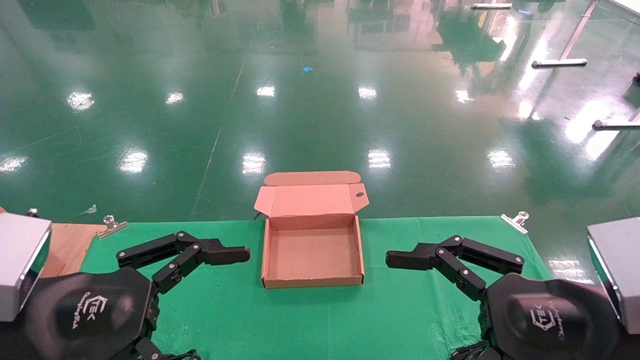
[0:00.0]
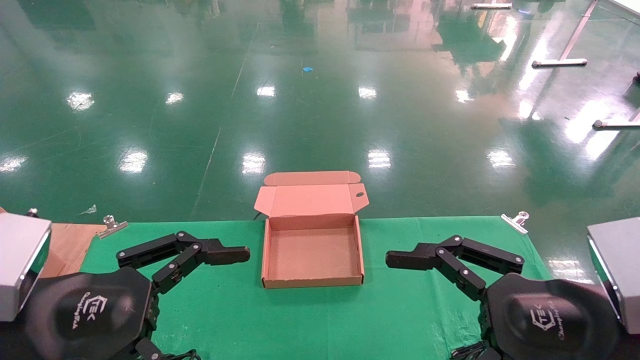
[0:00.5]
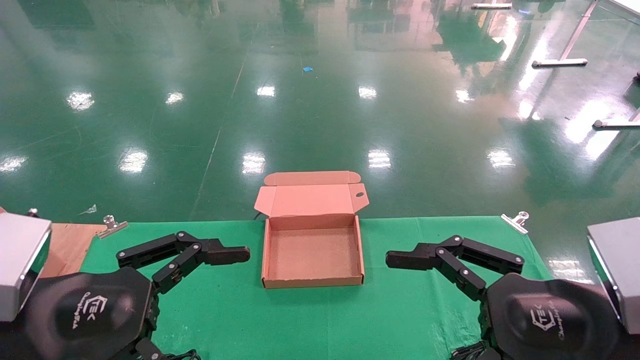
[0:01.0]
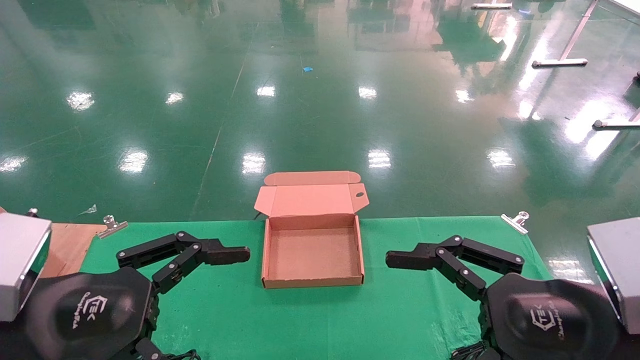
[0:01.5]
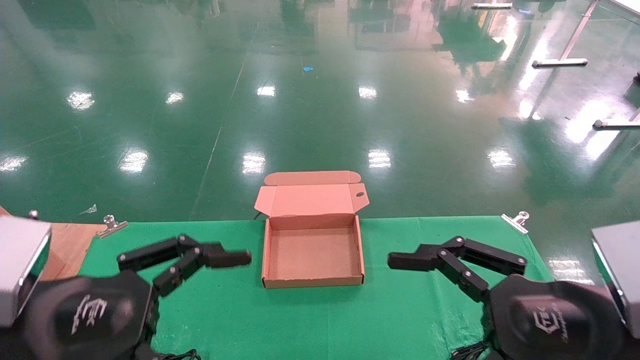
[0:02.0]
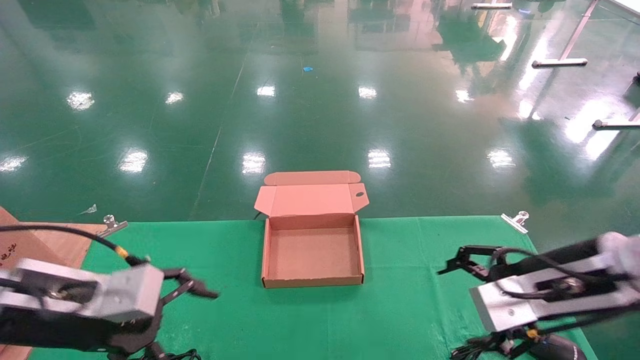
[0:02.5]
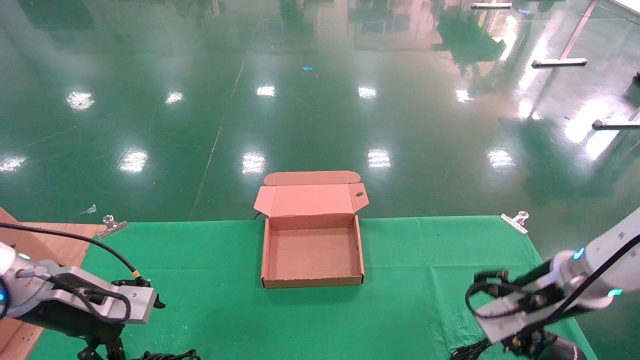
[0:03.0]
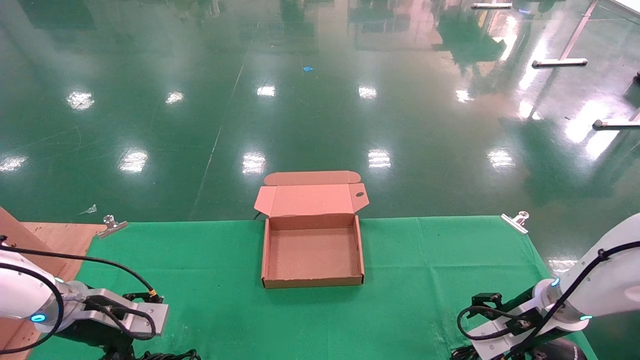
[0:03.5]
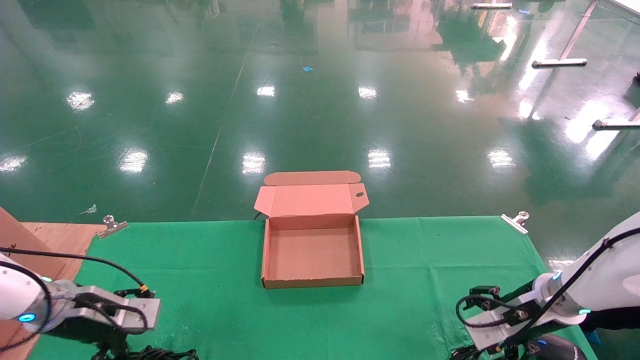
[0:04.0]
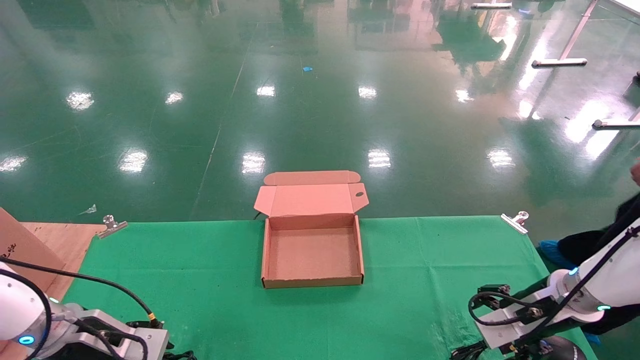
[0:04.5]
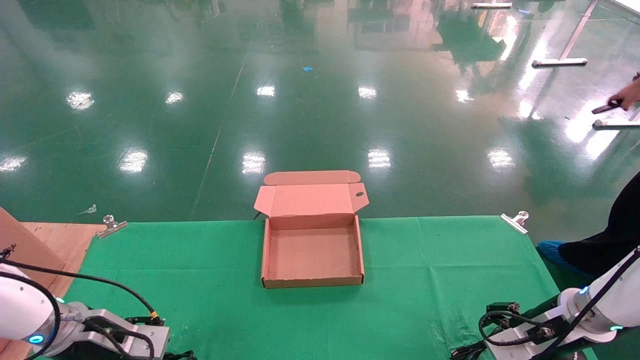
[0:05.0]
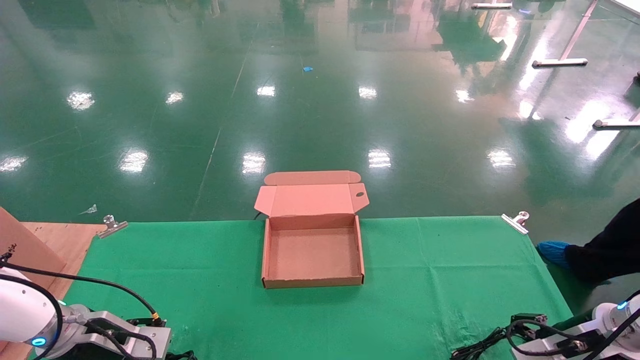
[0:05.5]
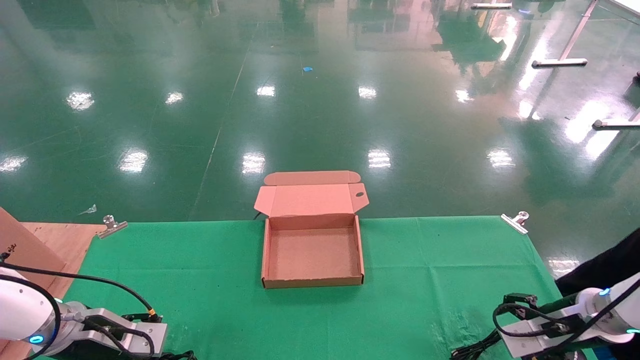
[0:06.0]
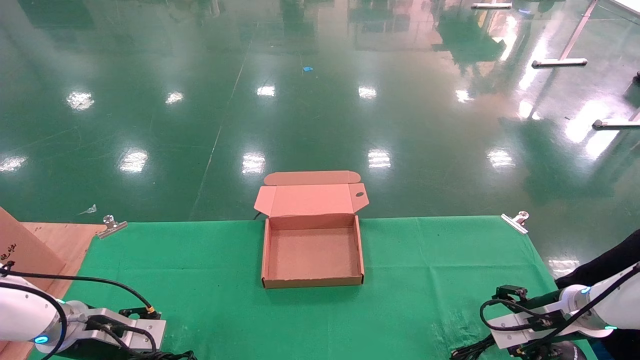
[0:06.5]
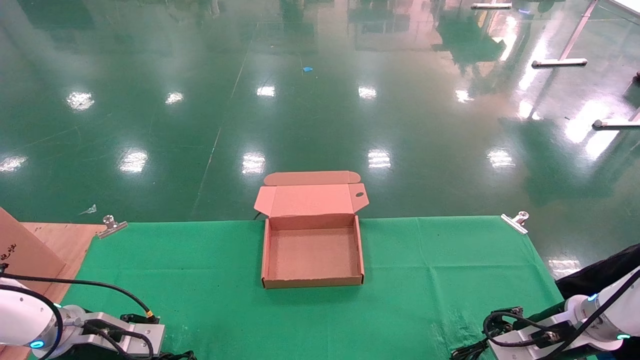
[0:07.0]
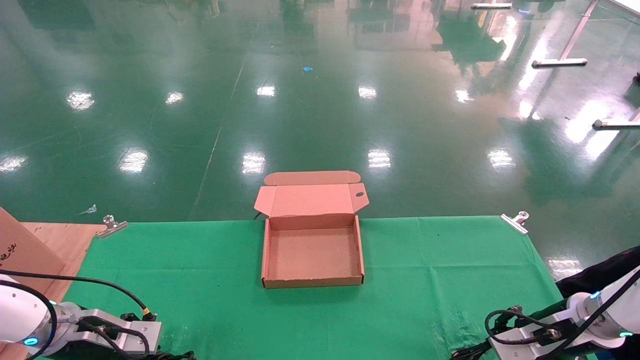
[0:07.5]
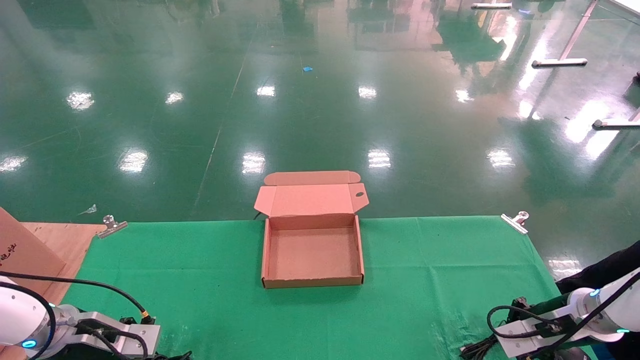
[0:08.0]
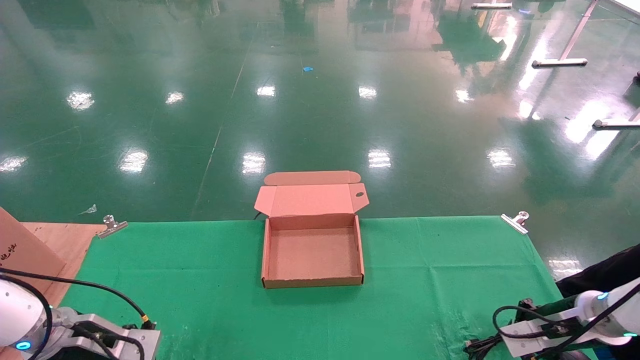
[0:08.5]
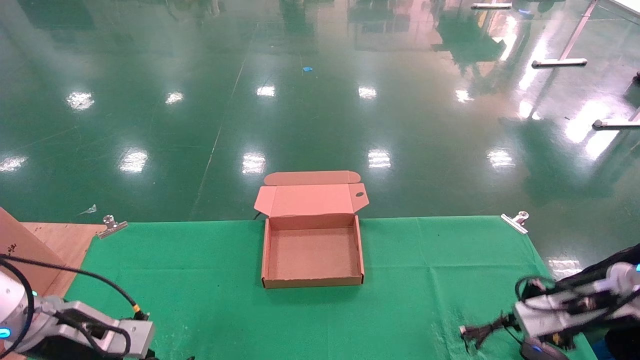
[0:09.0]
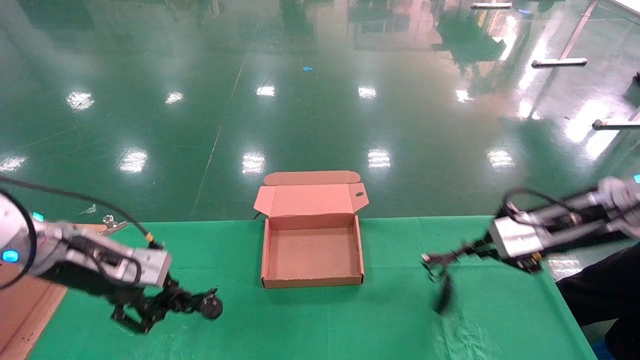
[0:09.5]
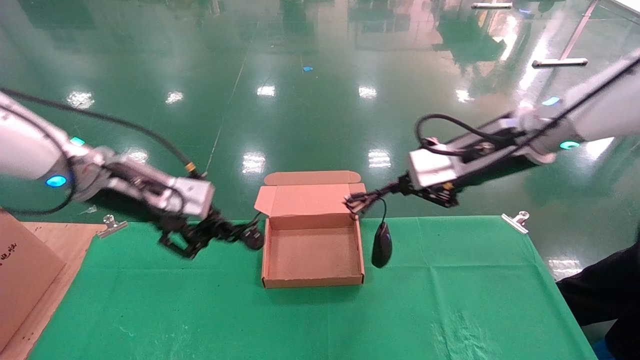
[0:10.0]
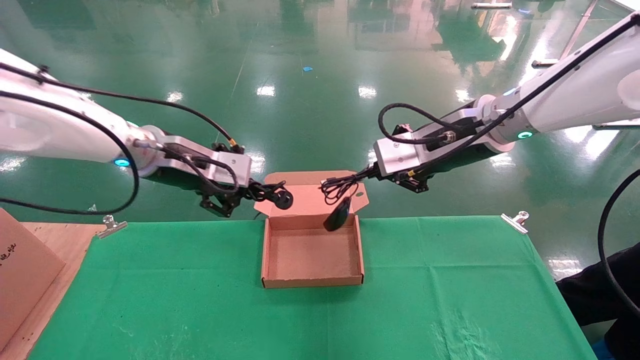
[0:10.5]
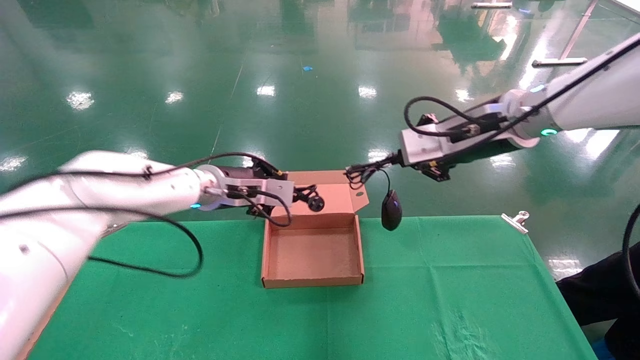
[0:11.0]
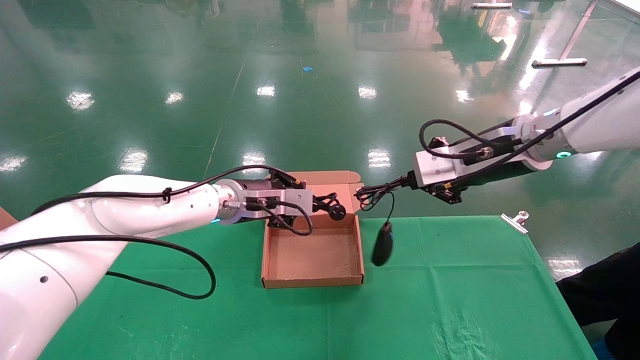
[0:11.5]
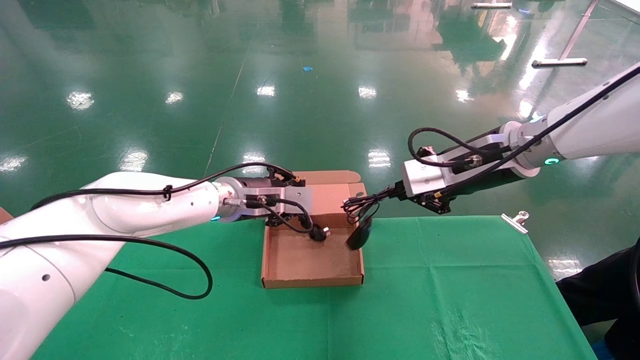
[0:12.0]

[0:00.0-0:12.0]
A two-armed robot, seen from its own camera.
Step, 0:02.5 to 0:09.0: Grab and lift both the mouse and power cord from the accessory packaging area at the same time.
0:00.0 to 0:02.0: The grippers move only a little.
0:02.0 to 0:04.0: The right gripper shifts approximately 25 cm forward and downward; the left gripper shifts some 25 cm forward, downward and to the left.
0:04.0 to 0:06.0: The right gripper heads to the right, covering approximately 5 cm.
0:06.0 to 0:08.0: The right gripper closes up. Meanwhile the left gripper closes.
0:08.0 to 0:10.0: The left gripper is displaced upward and to the right by about 25 cm. Meanwhile the right gripper shifts roughly 30 cm upward and to the left.
0:10.0 to 0:12.0: The left gripper travels to the right, forward and downward by some 20 cm.

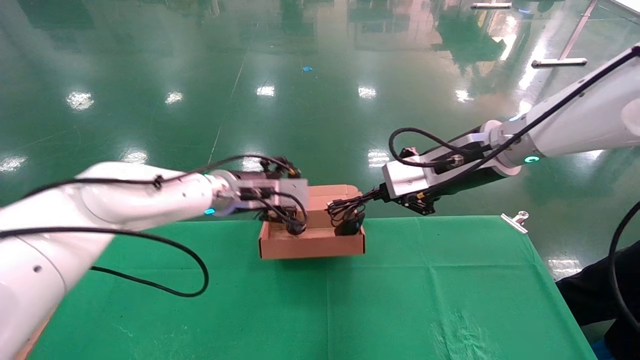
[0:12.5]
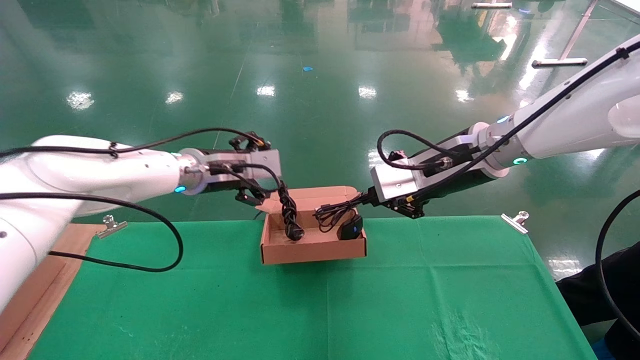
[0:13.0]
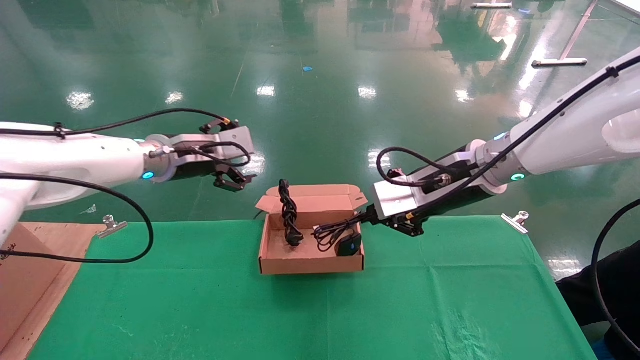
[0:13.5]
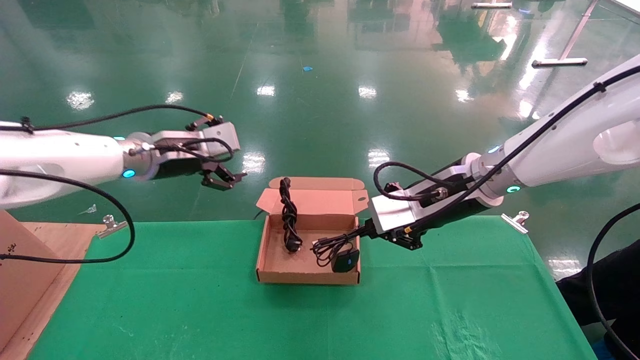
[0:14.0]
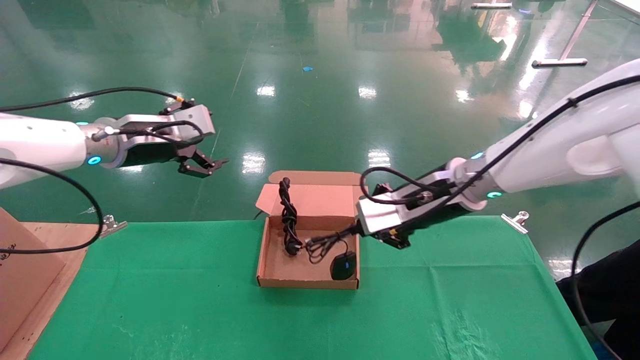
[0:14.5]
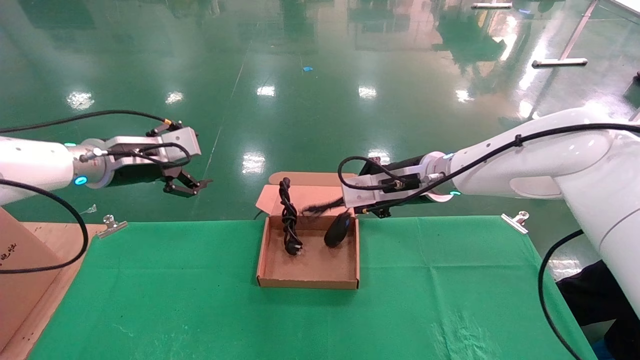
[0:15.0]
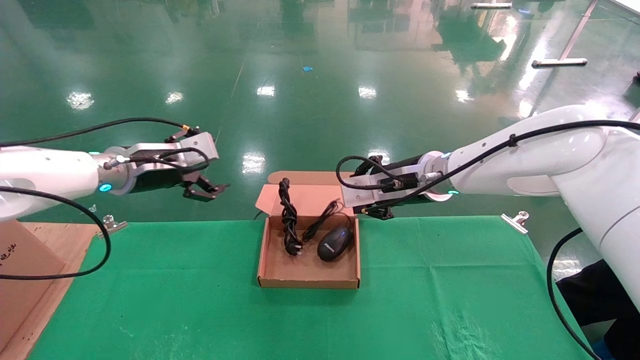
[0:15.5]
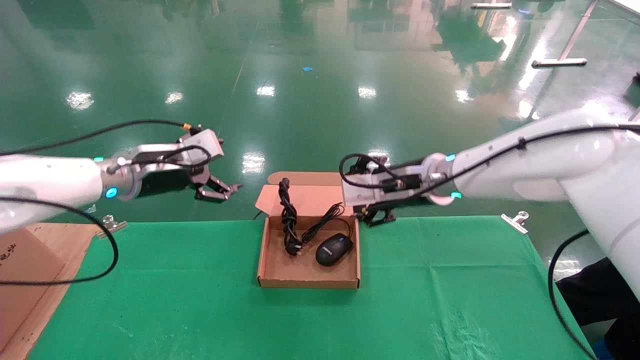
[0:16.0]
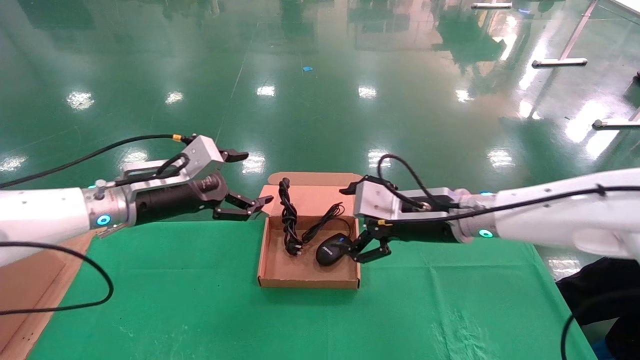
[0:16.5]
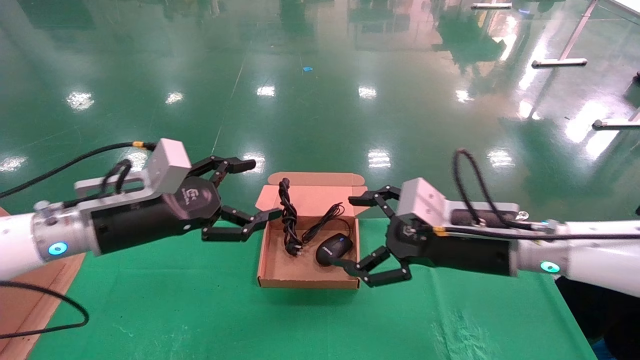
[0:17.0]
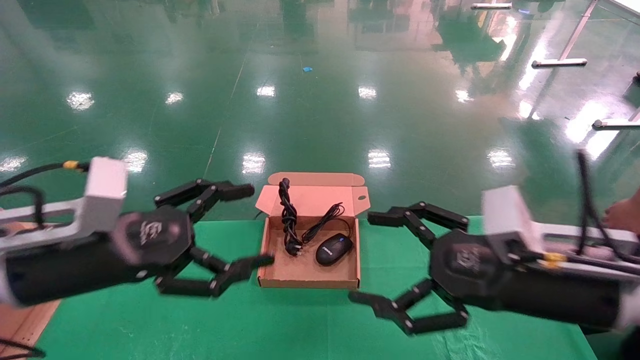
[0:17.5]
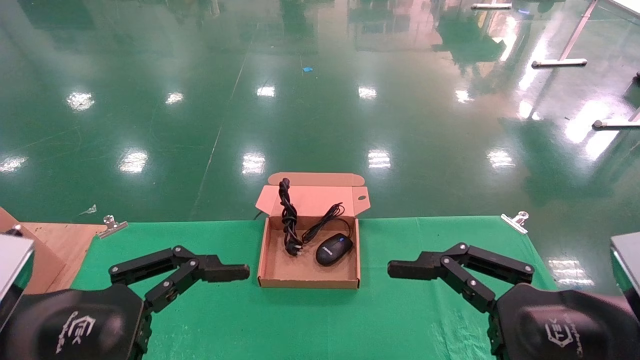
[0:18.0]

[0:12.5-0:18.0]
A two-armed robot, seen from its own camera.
Step, 0:12.5 to 0:15.0: Place the mouse and power cord into the box.
0:12.5 to 0:14.5: The left gripper goes approximately 15 cm to the left and upward. Meanwhile the right gripper shifts by about 5 cm.
0:14.5 to 0:16.0: The right gripper opens. The left gripper goes roughly 5 cm downward.
0:16.0 to 0:18.0: The left gripper travels backward by approximately 25 cm, while the right gripper moves backward and to the right, some 30 cm, and opens.
